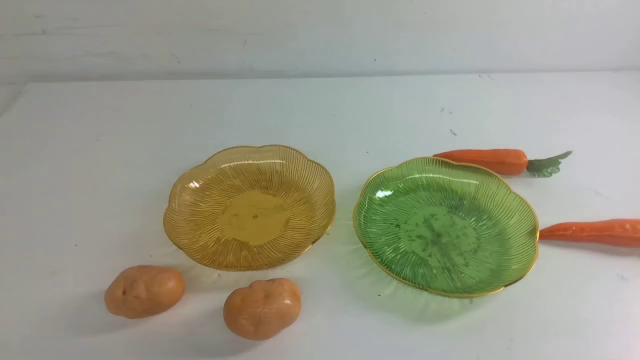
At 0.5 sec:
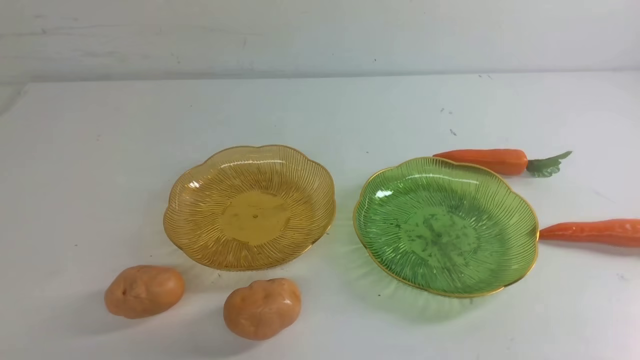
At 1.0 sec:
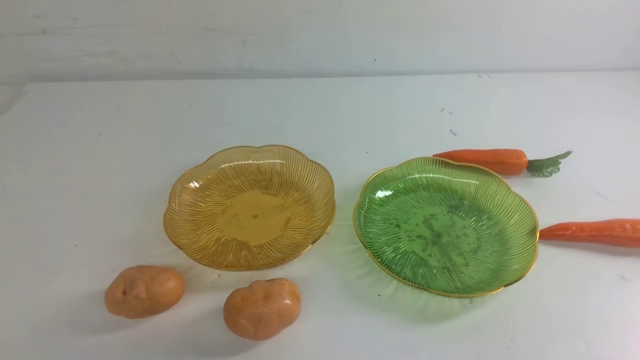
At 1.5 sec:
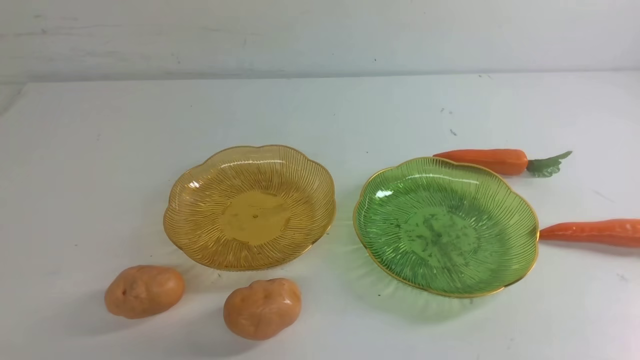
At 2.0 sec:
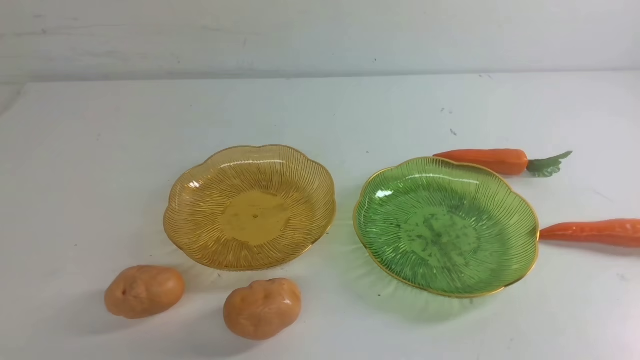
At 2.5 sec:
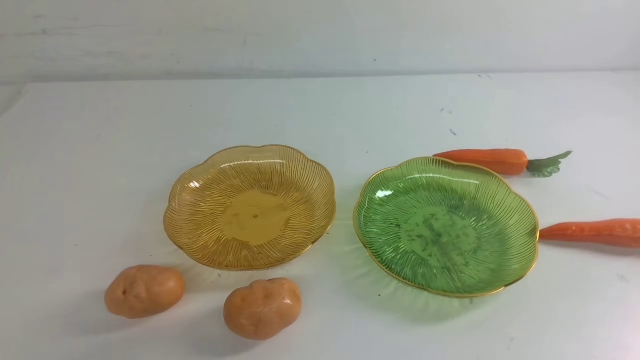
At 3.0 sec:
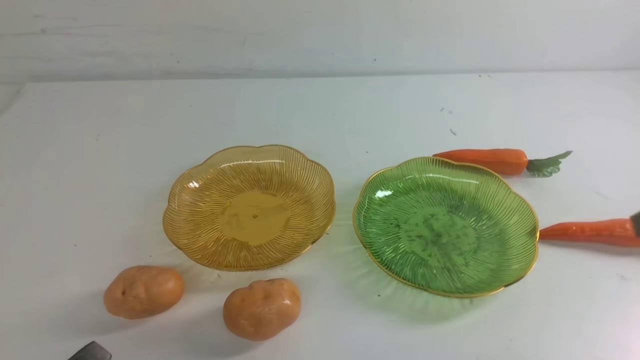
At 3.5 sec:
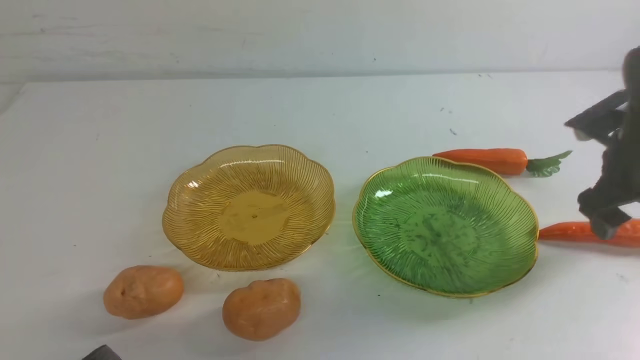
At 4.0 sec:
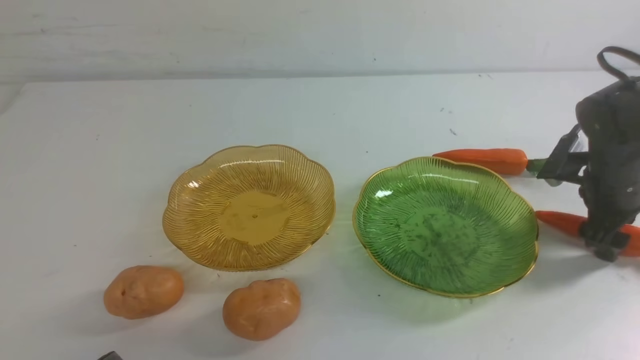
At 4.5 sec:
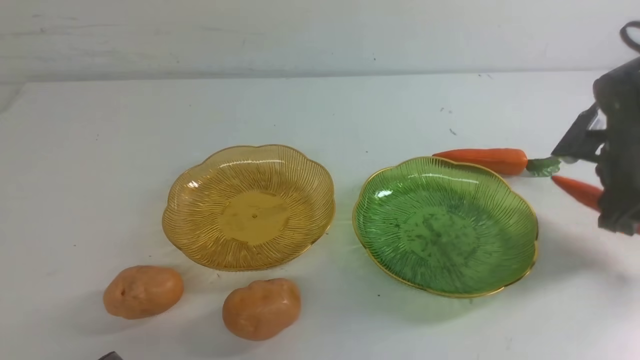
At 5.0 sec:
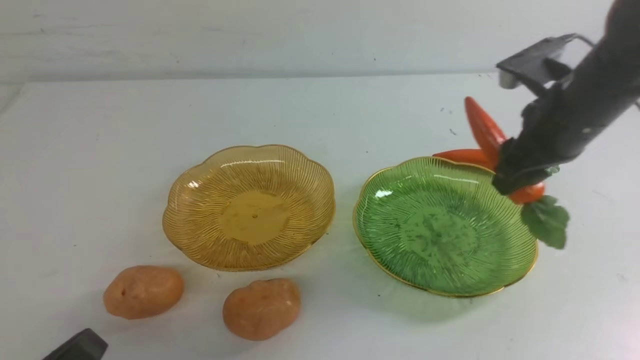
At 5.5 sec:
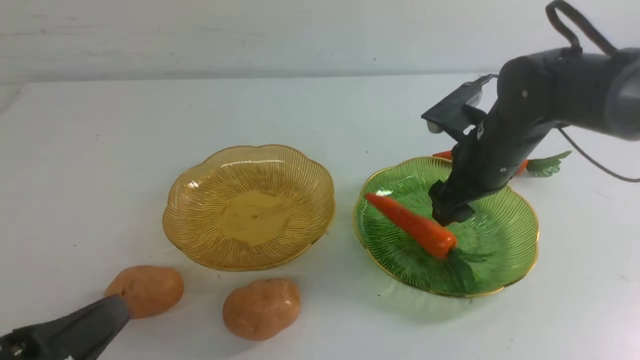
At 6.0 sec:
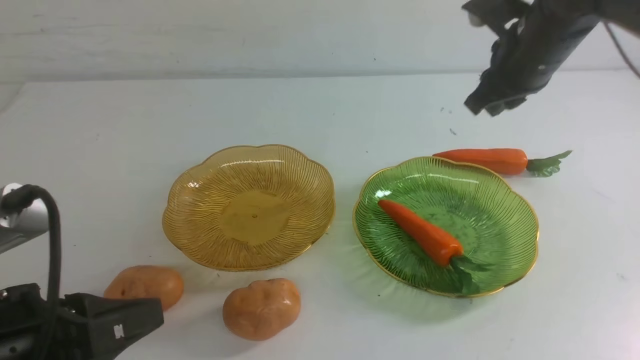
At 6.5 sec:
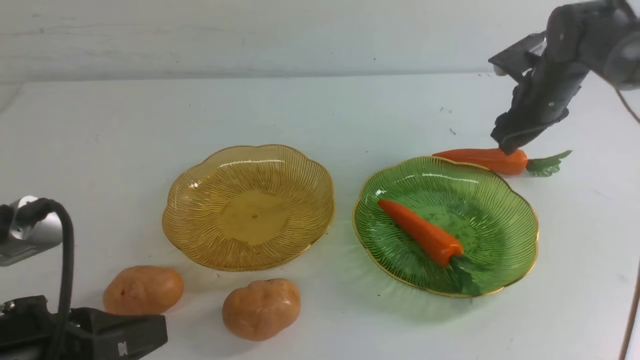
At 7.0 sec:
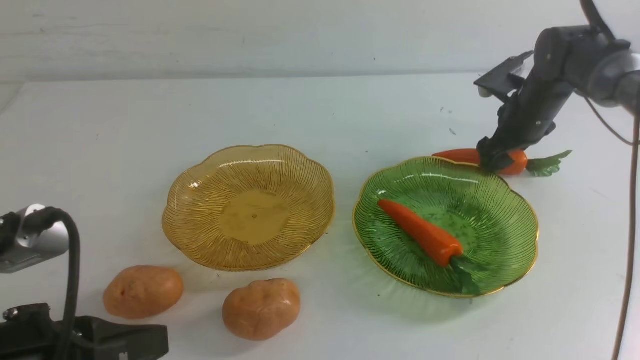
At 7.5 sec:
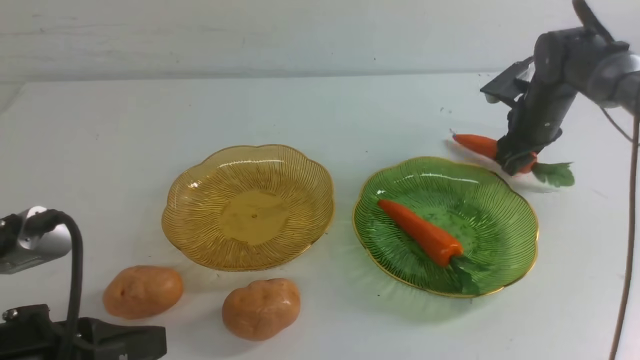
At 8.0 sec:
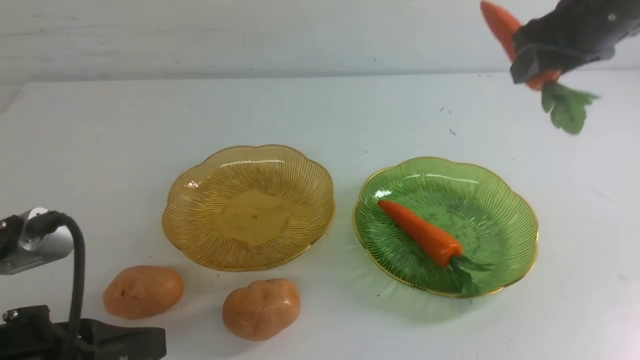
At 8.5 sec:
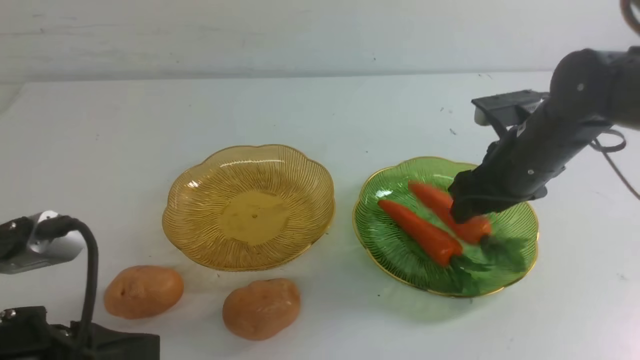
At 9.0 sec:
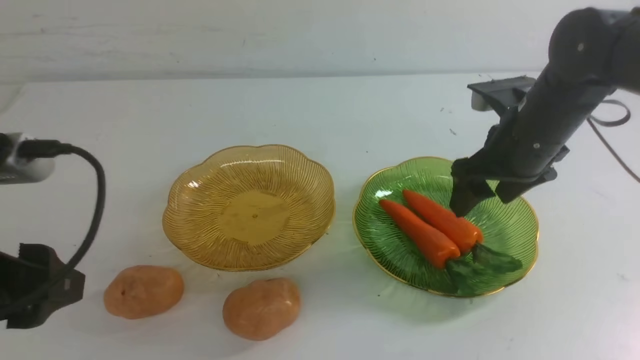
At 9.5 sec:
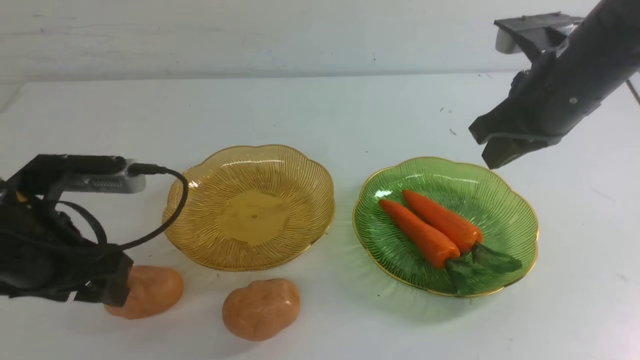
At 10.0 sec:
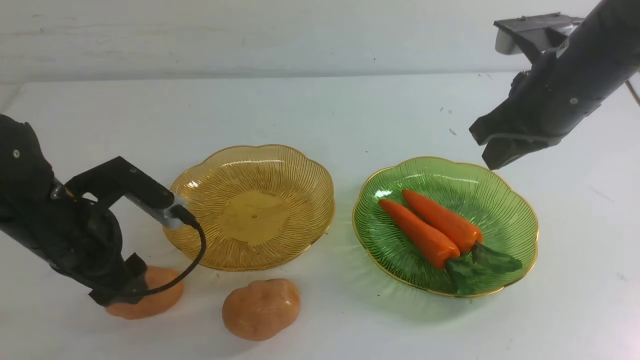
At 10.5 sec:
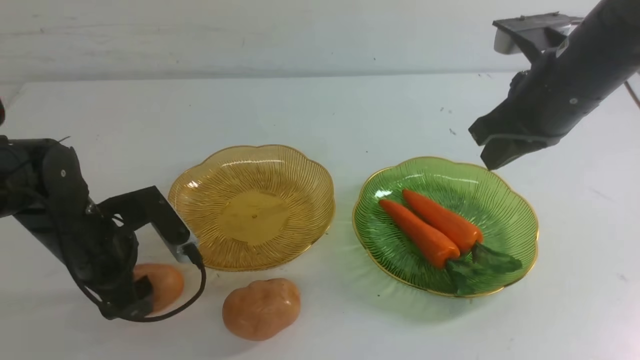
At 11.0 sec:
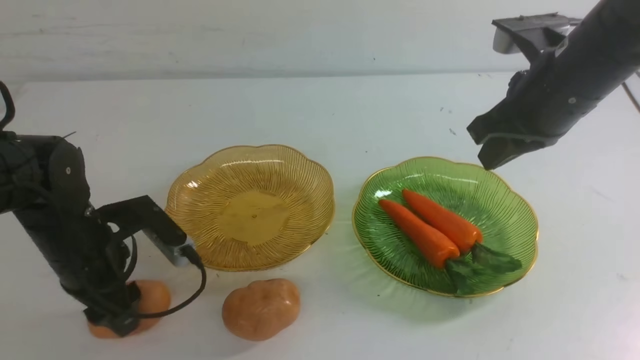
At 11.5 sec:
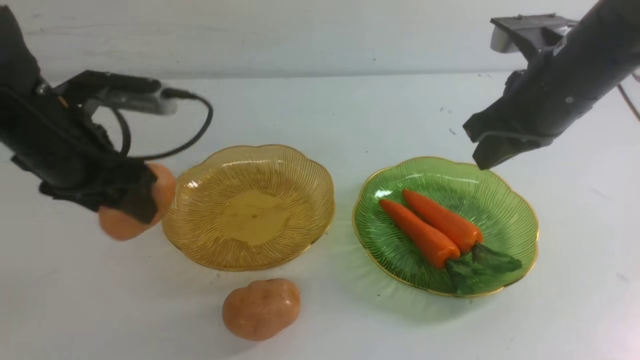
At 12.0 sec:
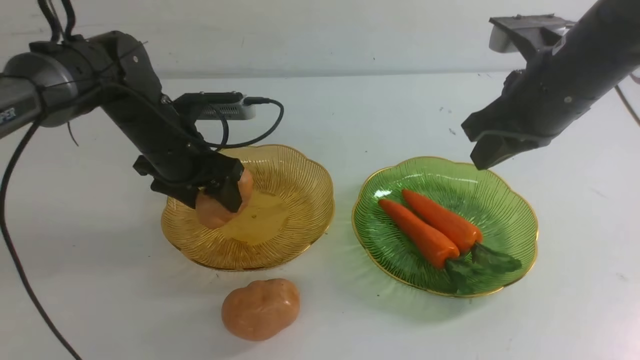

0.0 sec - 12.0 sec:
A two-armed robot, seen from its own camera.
Step, 0.0 sec - 5.0 sec: use the right arm to grab a carrot and put it into the right plate.
Step, 6.0 sec - 8.5 sec: use the right arm to grab a carrot and put it into the right plate.
2.0 sec - 4.0 sec: The right gripper moves forward, about 35 cm, and opens.
4.0 sec - 6.0 sec: The right gripper is displaced upward and to the left by about 15 cm, and closes up. Meanwhile the left gripper goes about 10 cm upward and forward.
6.0 sec - 8.0 sec: The right gripper reaches approximately 10 cm downward, then returns, and opens, then closes again.
8.0 sec - 10.0 sec: The right gripper moves some 10 cm downward and comes back, and closes; the left gripper moves forward and downward, some 20 cm, and opens.
10.0 sec - 12.0 sec: The left gripper is displaced forward by about 15 cm.

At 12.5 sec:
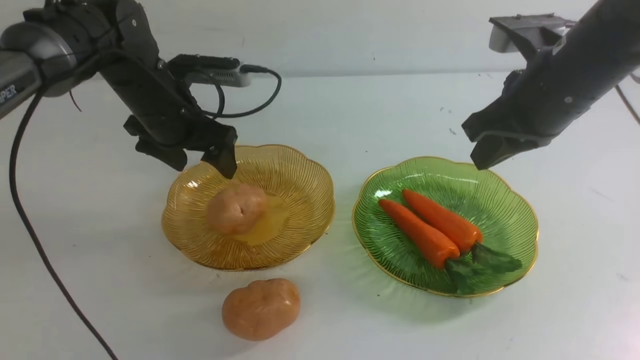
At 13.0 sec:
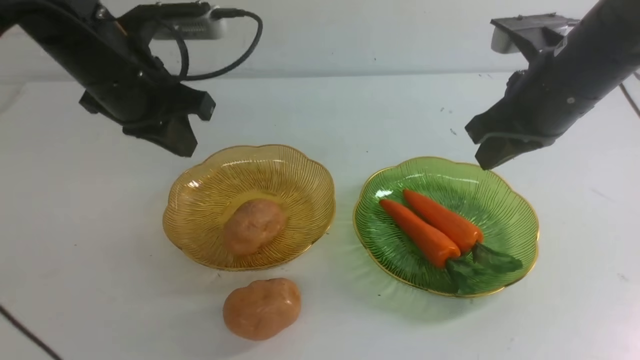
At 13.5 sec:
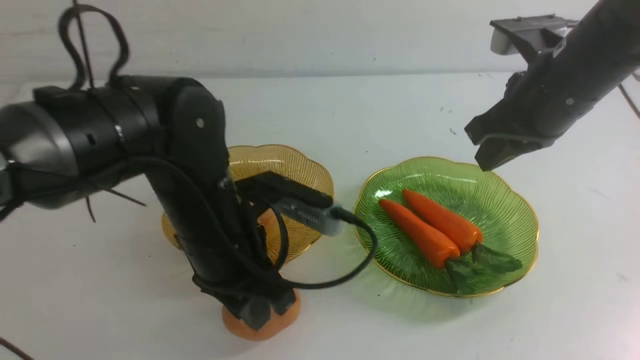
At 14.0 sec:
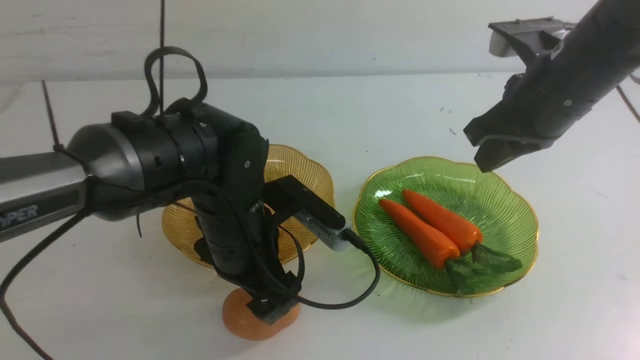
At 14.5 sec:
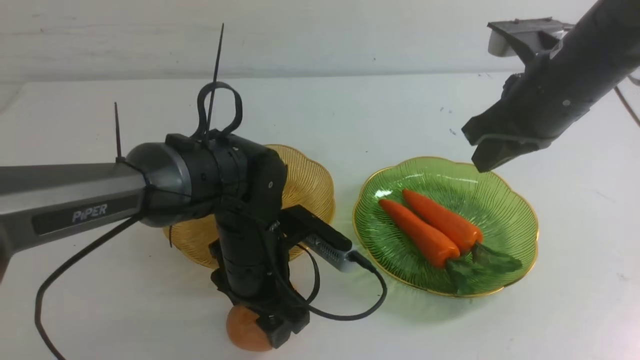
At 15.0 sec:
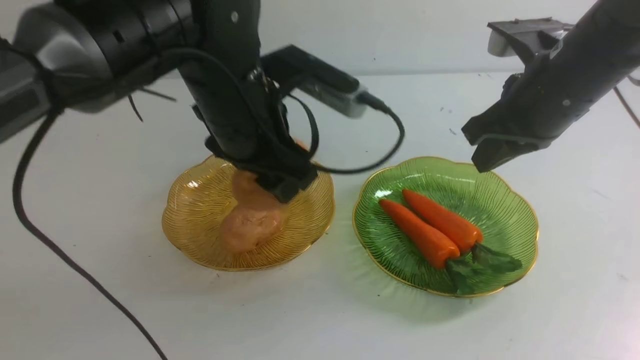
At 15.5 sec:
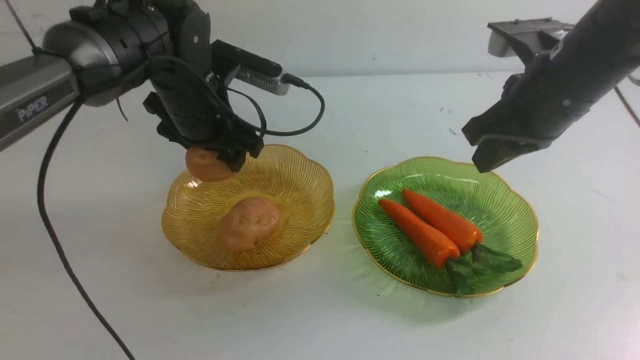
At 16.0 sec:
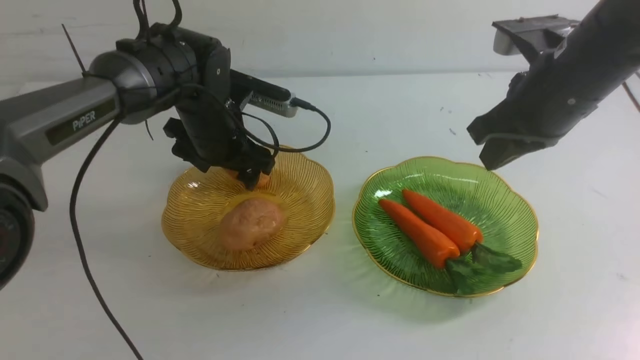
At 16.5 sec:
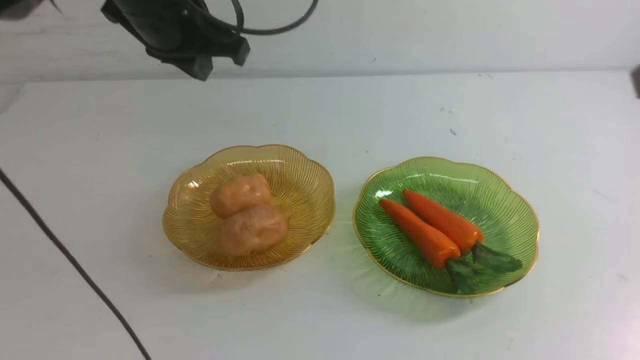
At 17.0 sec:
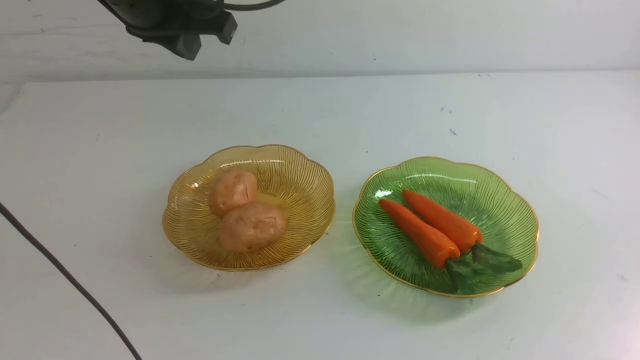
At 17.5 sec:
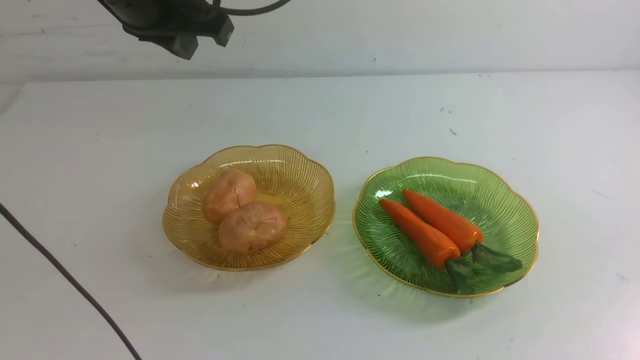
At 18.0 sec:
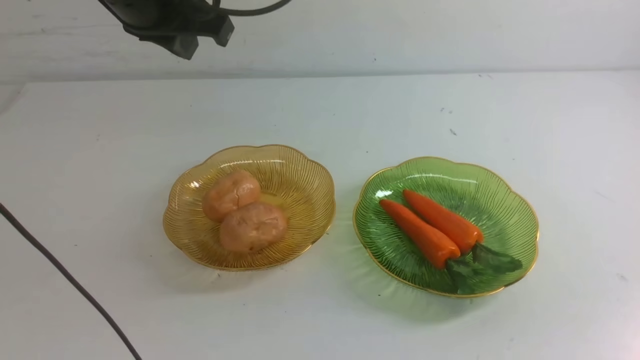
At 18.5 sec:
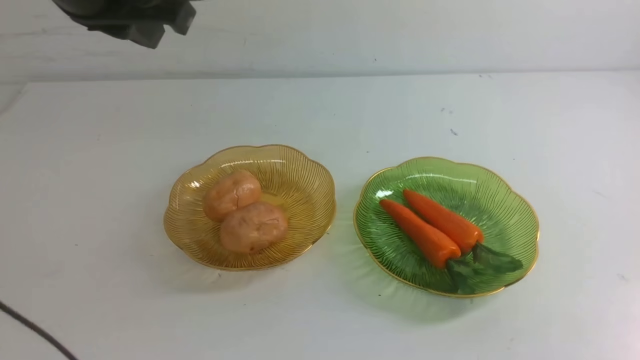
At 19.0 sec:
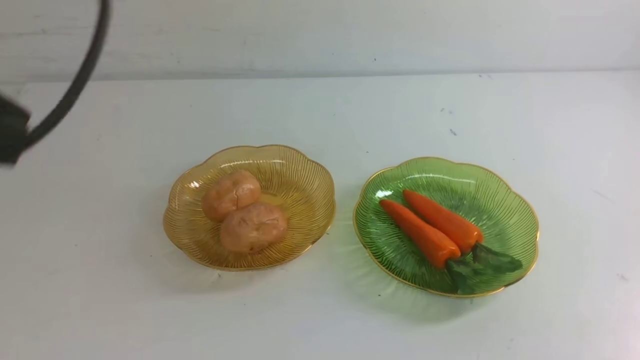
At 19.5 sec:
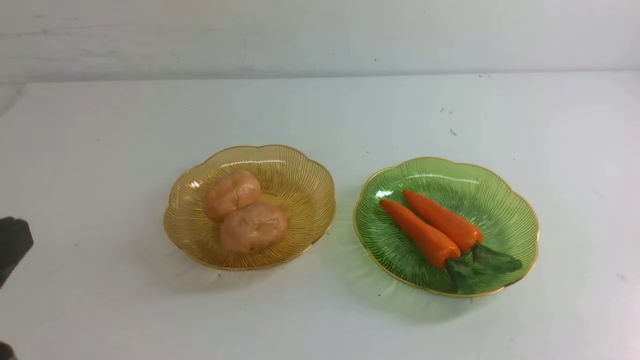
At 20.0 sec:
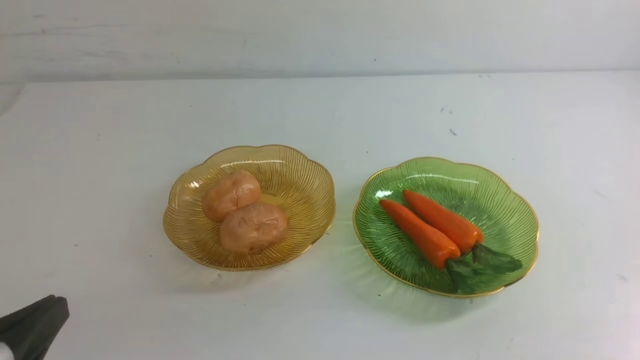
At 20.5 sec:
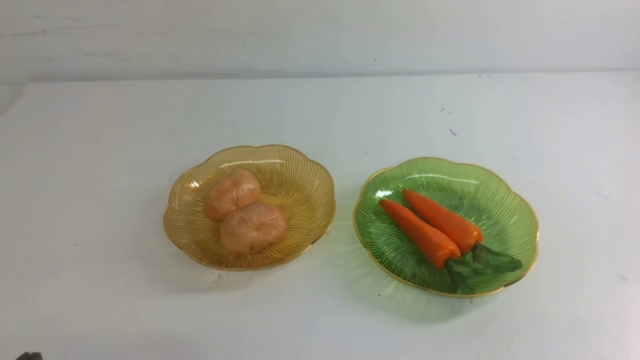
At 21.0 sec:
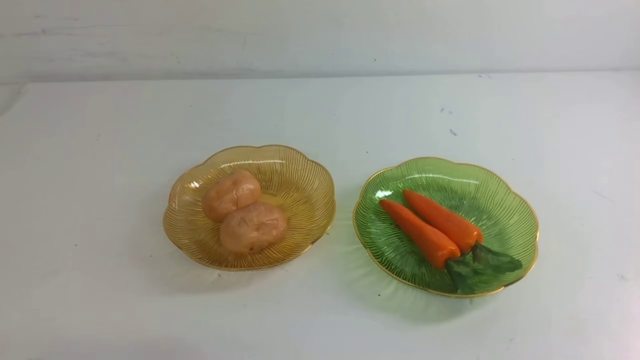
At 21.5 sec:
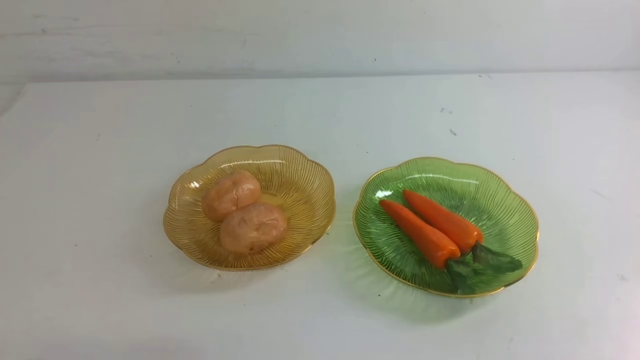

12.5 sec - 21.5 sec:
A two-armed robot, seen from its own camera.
Step, 12.5 sec - 15.5 sec: Grab a potato with your left arm and put it on the left plate.
12.5 sec - 14.5 sec: The left gripper is displaced to the right, backward and downward by about 20 cm, and closes, then reopens.
14.5 sec - 17.0 sec: The left gripper swings up and down, roughly 20 cm each way, with 2 reversals, and closes its fingers; the right gripper goes some 30 cm backward.
17.0 sec - 19.5 sec: The left gripper shifts some 35 cm backward and downward.
19.5 sec - 21.5 sec: The left gripper is displaced downward by some 5 cm.
